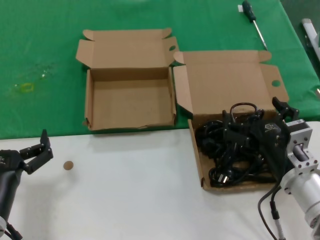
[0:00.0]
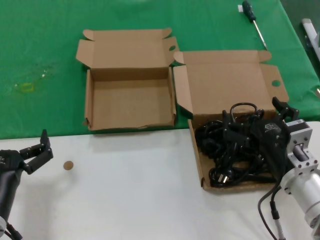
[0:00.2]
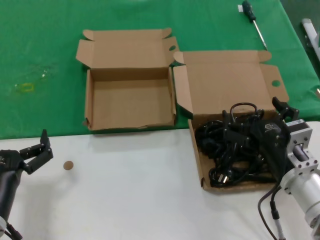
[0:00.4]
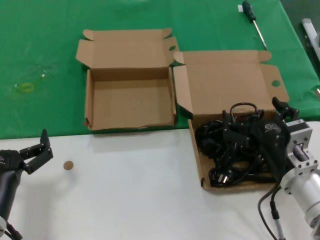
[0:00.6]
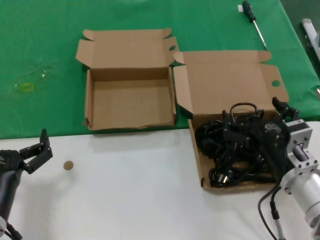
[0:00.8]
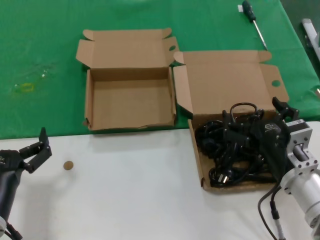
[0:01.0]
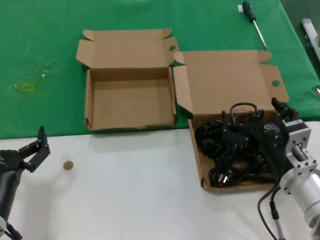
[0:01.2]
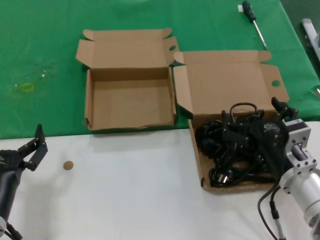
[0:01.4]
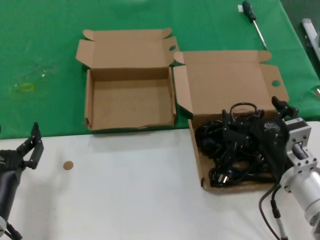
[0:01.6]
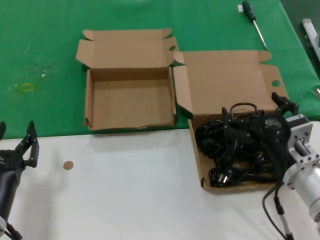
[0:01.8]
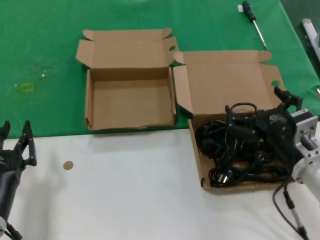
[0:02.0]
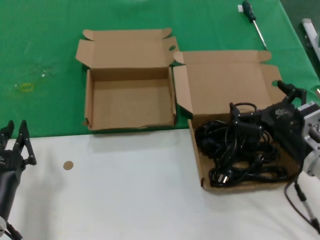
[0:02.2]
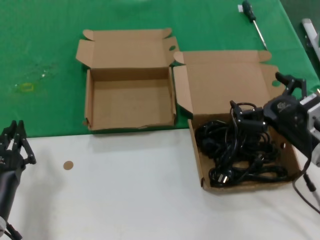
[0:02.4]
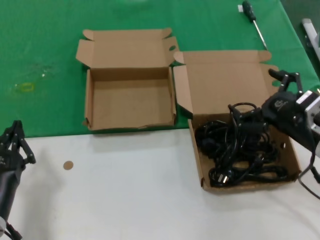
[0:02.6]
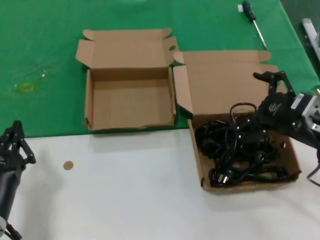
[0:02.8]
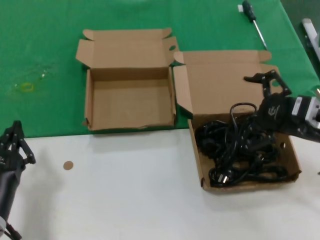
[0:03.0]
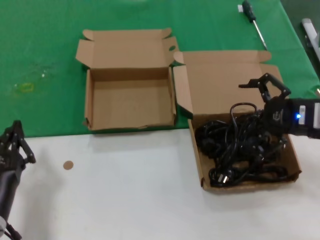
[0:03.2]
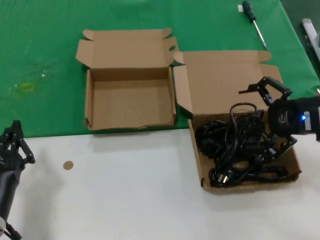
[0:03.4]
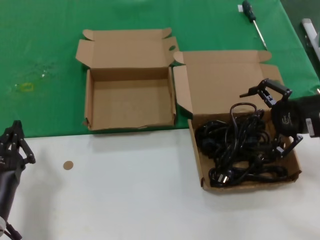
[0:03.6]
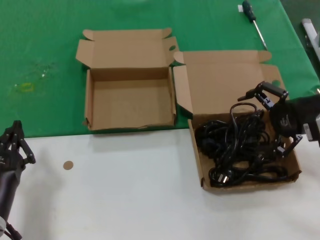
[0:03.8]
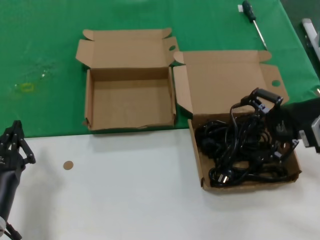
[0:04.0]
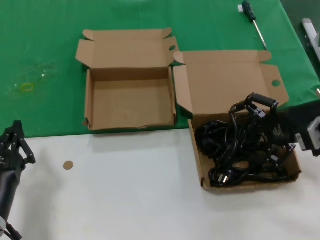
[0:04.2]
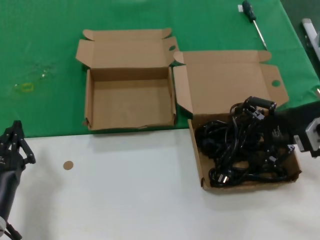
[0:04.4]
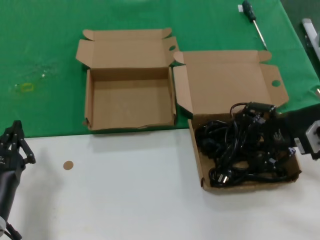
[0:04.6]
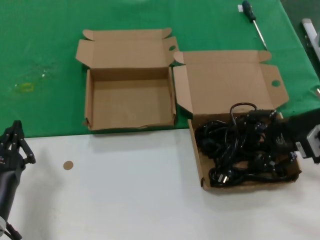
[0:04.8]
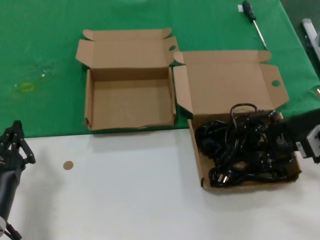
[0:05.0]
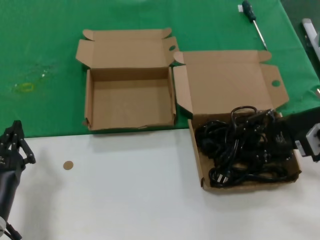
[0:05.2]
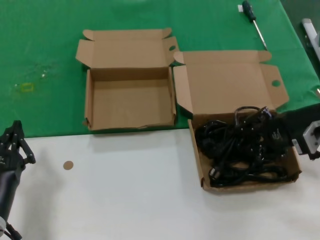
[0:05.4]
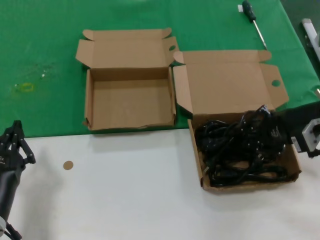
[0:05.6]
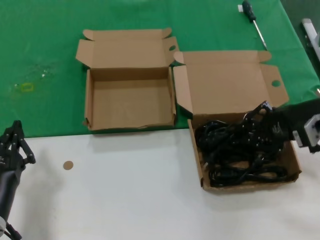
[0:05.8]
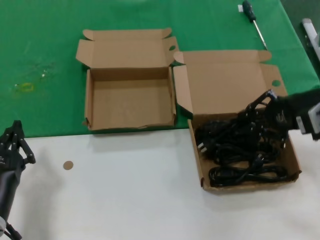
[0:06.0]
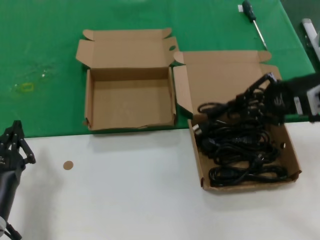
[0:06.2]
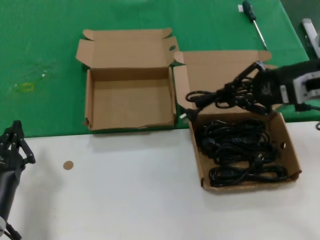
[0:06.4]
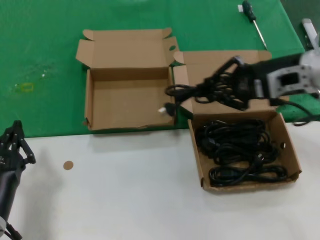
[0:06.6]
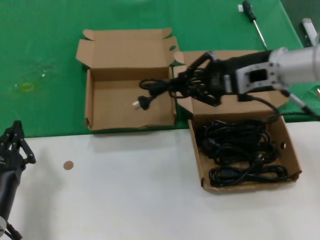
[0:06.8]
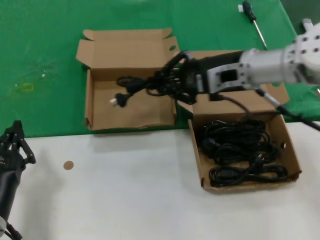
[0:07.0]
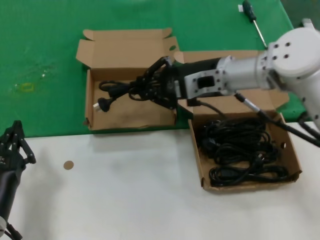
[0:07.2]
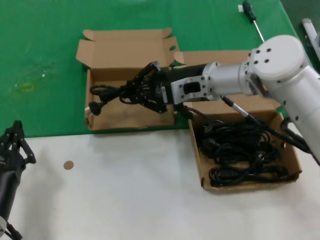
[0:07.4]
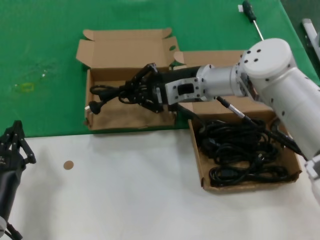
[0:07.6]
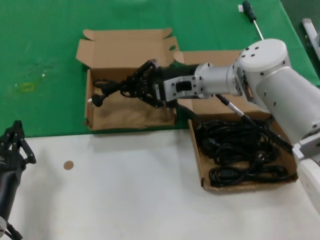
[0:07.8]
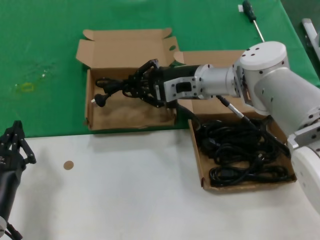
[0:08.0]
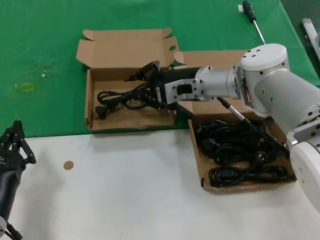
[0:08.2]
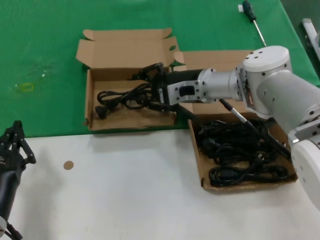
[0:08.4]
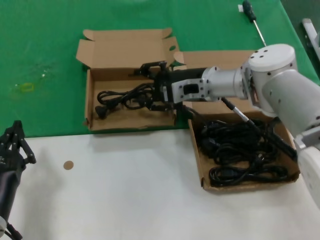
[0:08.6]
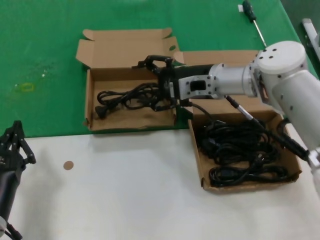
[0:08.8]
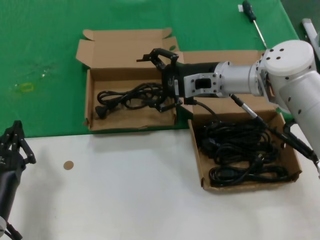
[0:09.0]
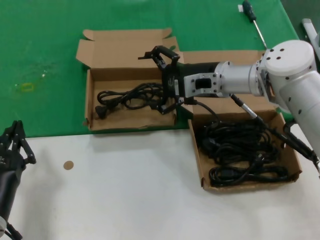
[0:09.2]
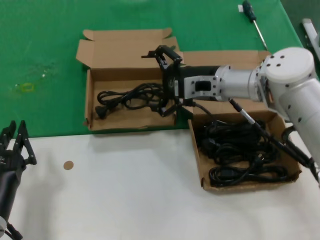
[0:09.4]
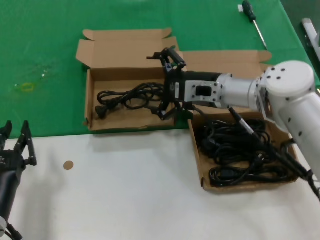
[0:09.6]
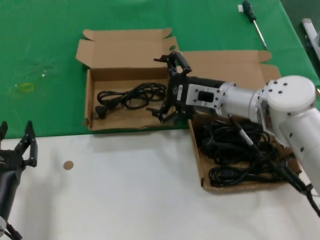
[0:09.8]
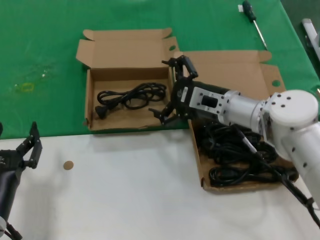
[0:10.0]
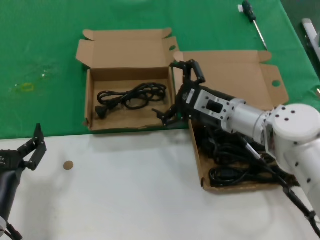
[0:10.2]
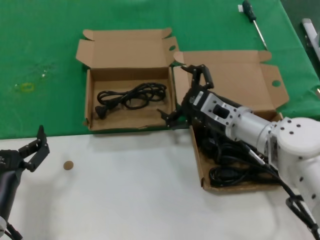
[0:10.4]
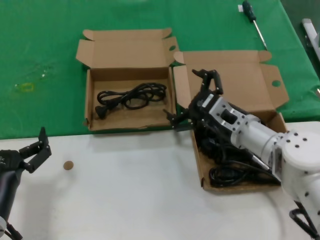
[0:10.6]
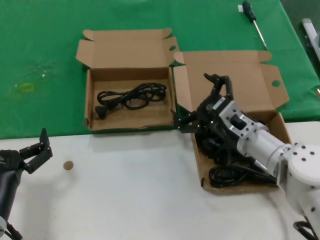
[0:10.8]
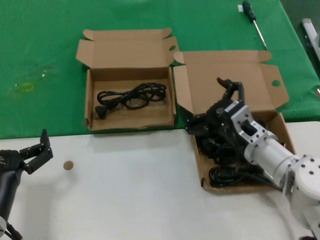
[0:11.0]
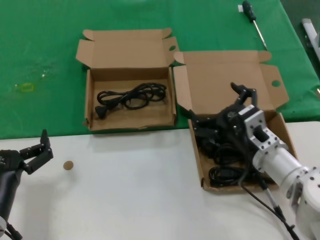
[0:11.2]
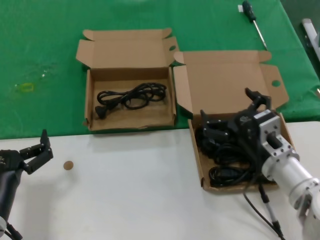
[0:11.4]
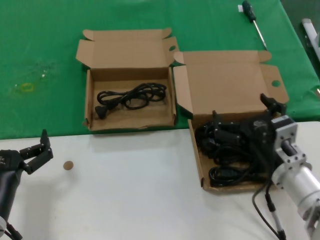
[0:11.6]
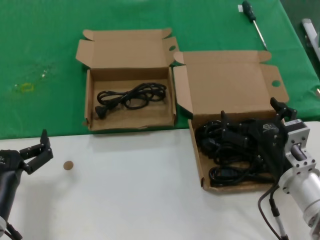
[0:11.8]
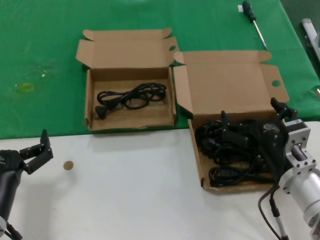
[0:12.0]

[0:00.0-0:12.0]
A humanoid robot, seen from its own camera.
Task of the whole recording: take the parts from the box containing them and put them into an empty box.
Step, 0:00.0 to 0:05.6: Grasp the data cable.
Step, 0:05.8 to 0:08.6: Place the data cable in the another box.
0:00.0 to 0:01.6: Neither hand changes place.
0:01.6 to 0:03.0: The right hand goes some 15 cm to the right, upward and forward.
0:03.0 to 0:04.4: The right hand shifts some 5 cm forward.
0:04.4 to 0:06.0: The hands move only a little.
0:06.0 to 0:07.6: The right hand travels to the left and forward by roughly 25 cm.
0:07.6 to 0:09.0: The hands make only small movements.
0:09.0 to 0:10.4: The right hand moves downward and backward, some 10 cm.
0:10.4 to 0:12.0: The right hand heads backward, covering approximately 15 cm.

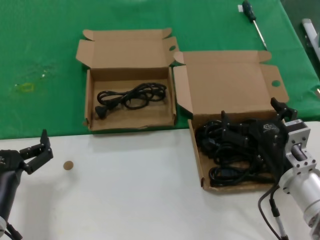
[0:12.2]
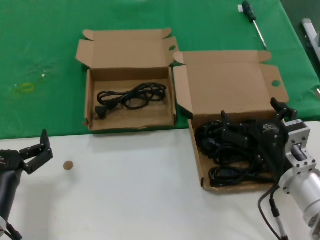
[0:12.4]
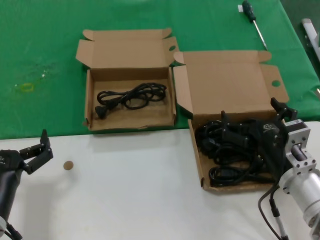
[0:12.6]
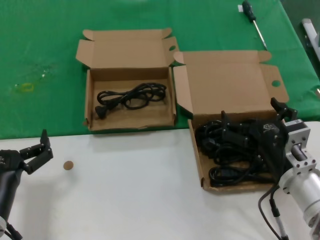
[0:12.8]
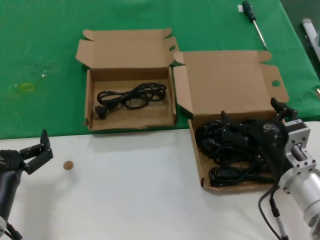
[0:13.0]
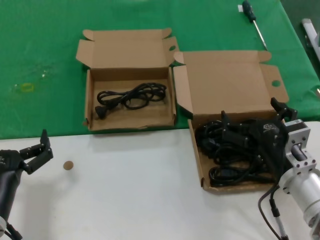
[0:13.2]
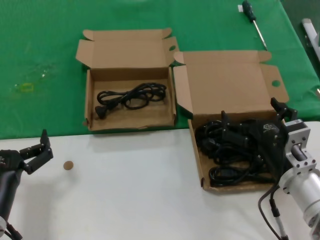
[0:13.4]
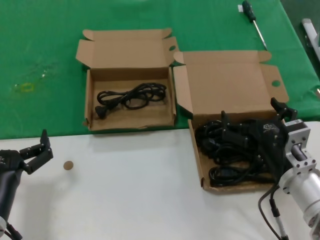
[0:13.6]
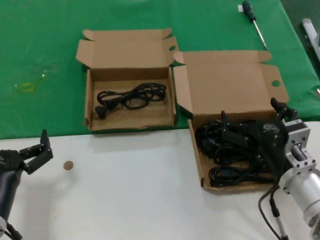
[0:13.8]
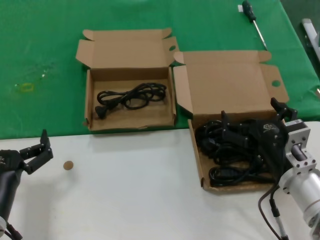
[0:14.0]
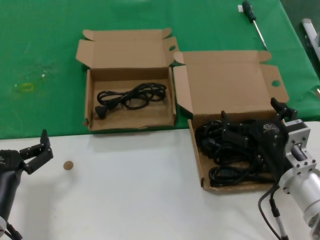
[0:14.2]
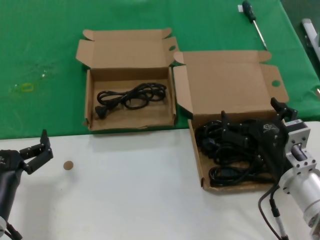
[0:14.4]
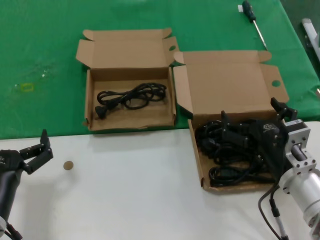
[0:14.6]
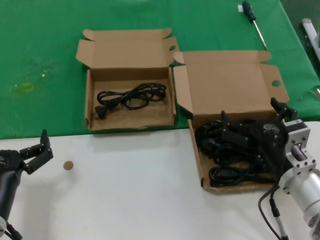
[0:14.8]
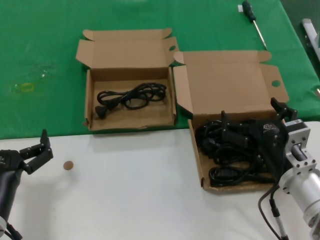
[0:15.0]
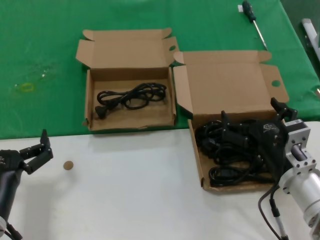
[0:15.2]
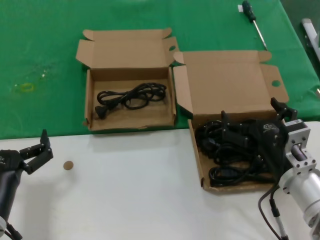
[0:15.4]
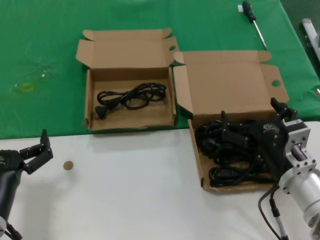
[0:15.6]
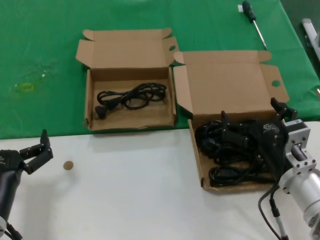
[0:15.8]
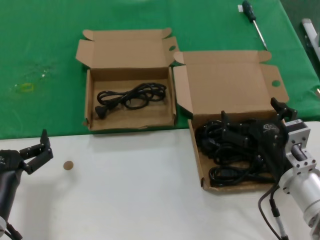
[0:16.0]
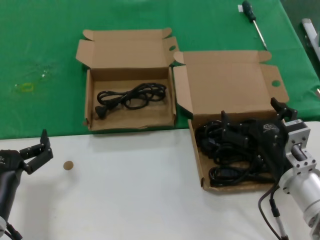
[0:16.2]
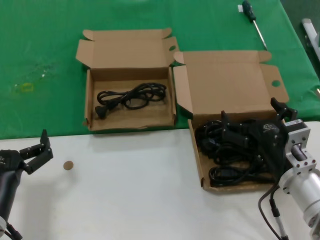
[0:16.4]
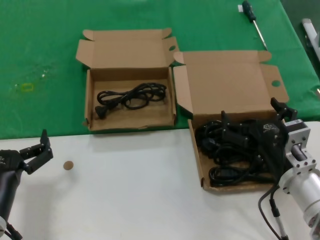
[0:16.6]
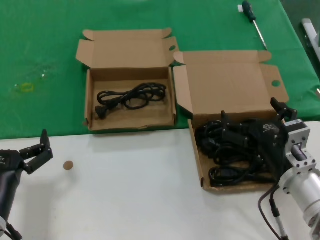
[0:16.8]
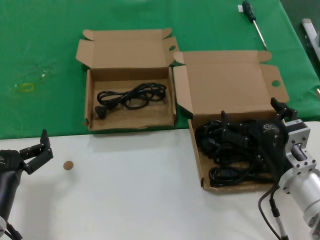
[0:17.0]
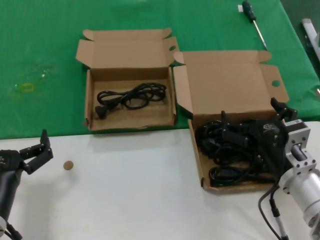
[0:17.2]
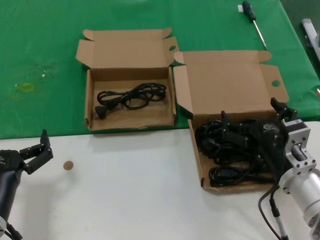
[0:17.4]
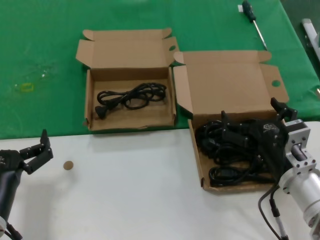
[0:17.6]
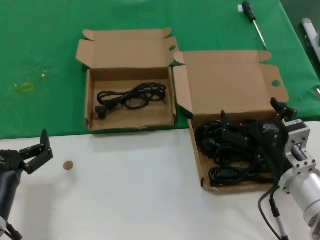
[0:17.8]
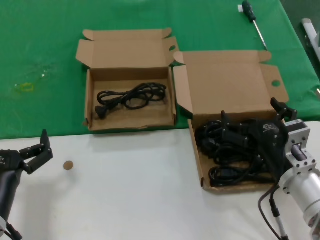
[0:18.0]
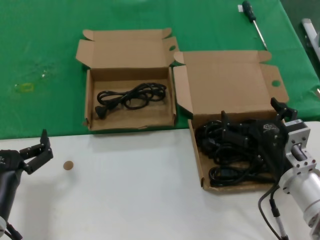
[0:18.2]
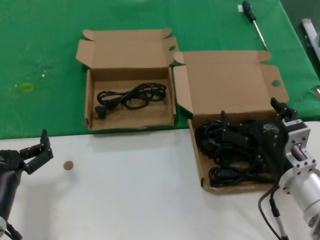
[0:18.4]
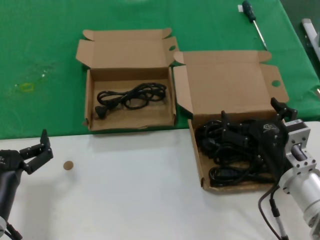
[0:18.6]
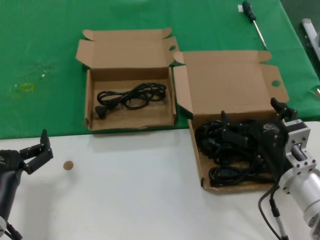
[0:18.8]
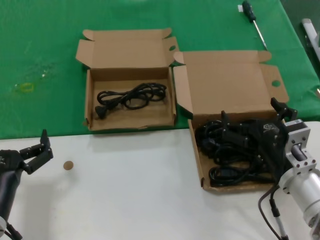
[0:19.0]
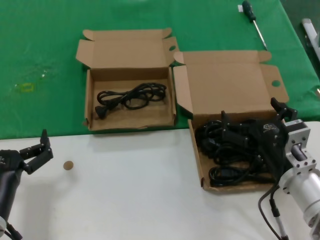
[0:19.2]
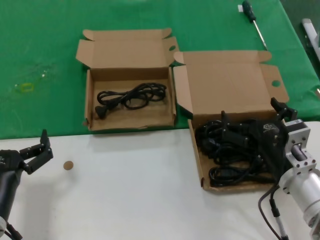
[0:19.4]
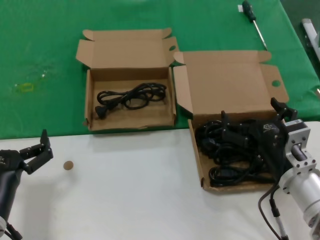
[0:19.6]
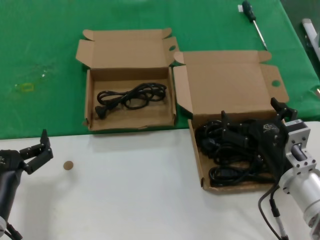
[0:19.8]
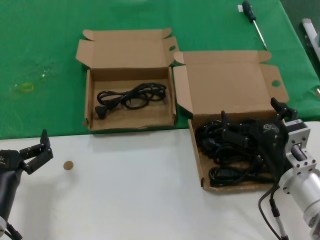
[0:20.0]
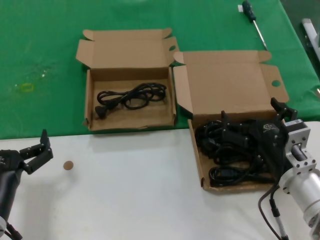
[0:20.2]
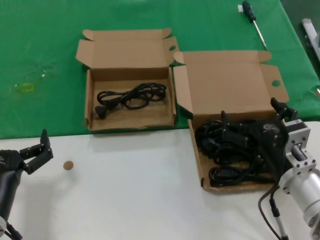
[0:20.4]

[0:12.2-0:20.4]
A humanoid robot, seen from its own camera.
Task of the whole recording: take the parts from the box containing them and put them into an empty box.
0:12.2 to 0:20.4: Both hands stay put.

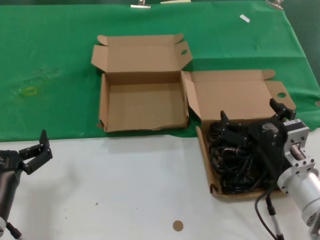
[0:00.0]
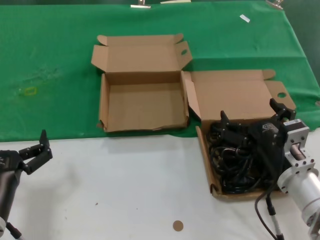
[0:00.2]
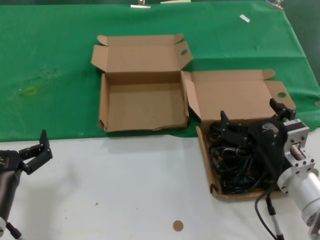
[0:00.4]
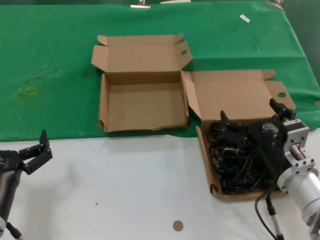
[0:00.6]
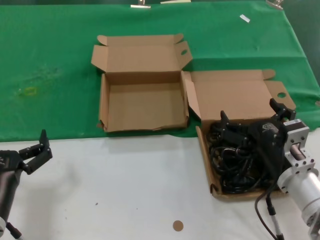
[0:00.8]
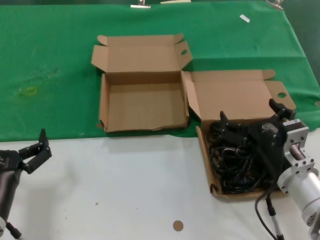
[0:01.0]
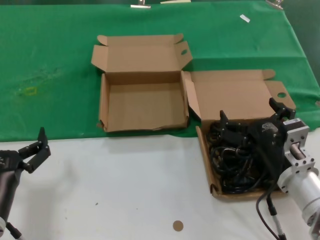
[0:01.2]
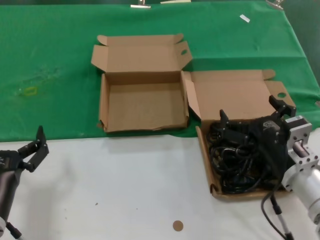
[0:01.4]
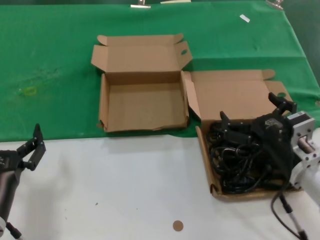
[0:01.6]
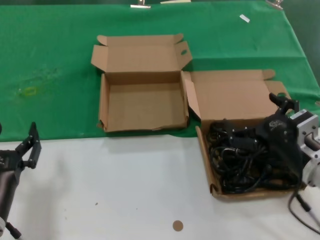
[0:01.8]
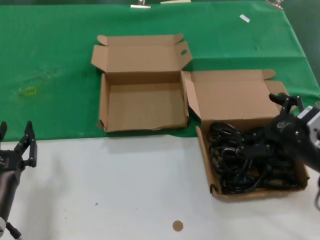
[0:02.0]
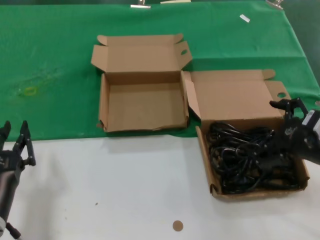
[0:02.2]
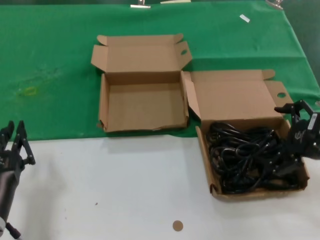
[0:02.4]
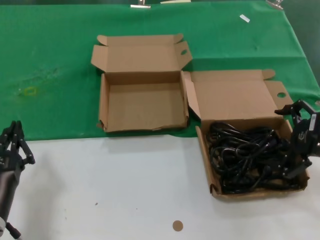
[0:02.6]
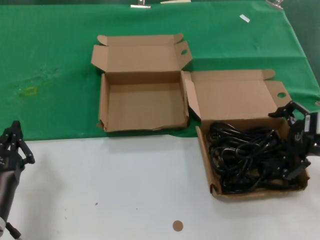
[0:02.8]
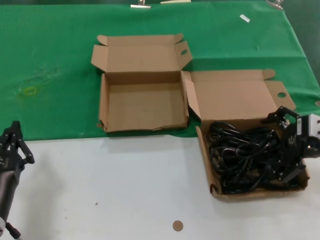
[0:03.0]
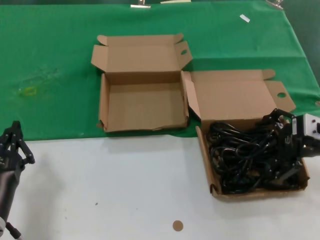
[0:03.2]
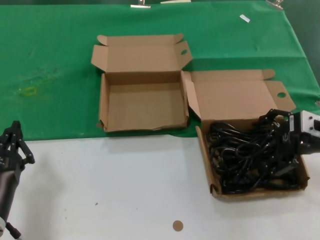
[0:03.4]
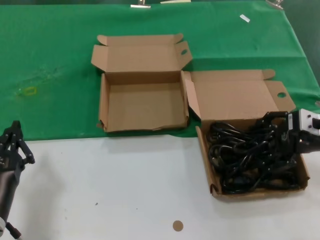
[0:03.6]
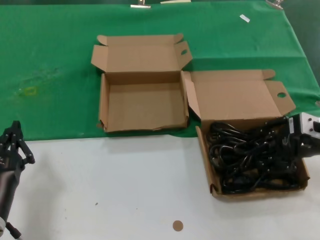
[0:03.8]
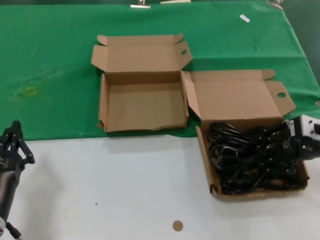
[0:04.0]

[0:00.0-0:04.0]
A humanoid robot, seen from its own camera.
Task of the whole recording: take the parts from the box containing them and put them into an empty box.
0:00.0 to 0:01.4: Neither hand changes place.
0:01.4 to 0:02.6: The right hand goes roughly 15 cm to the right and upward.
0:02.6 to 0:04.0: The right hand travels forward by roughly 5 cm.
